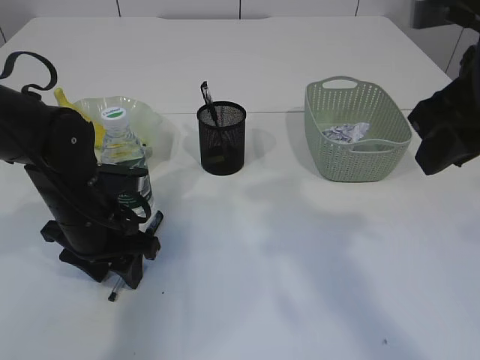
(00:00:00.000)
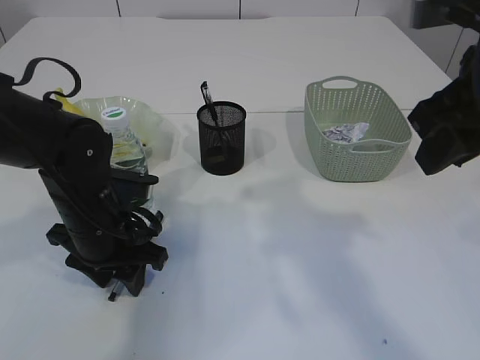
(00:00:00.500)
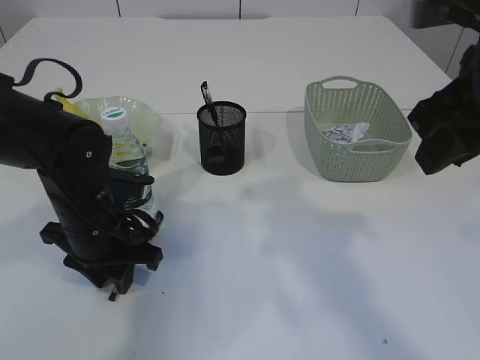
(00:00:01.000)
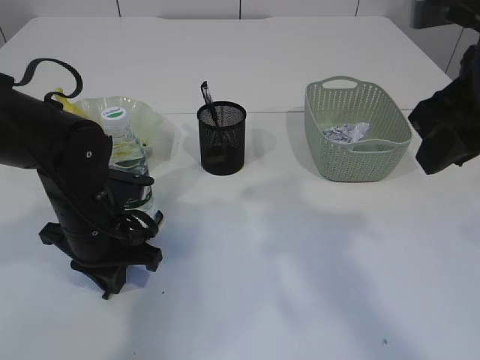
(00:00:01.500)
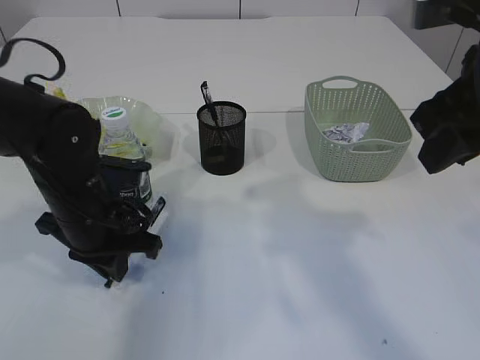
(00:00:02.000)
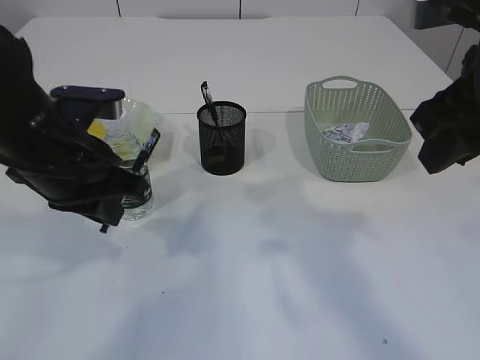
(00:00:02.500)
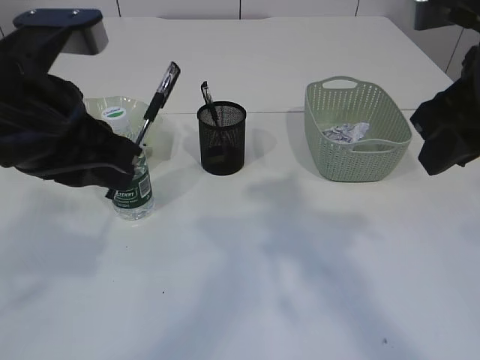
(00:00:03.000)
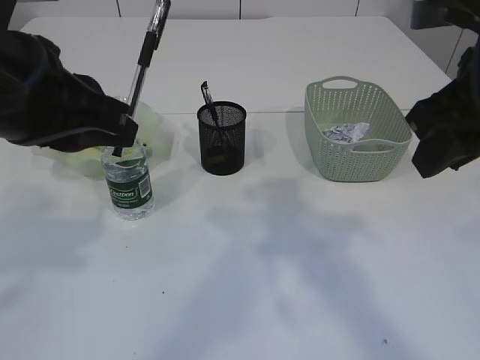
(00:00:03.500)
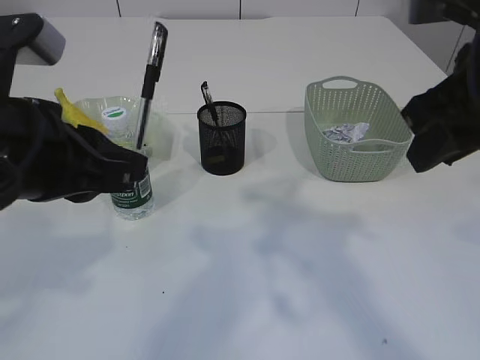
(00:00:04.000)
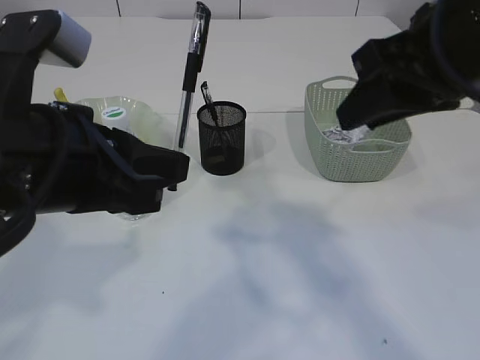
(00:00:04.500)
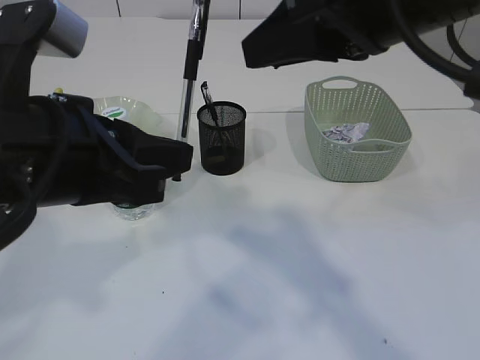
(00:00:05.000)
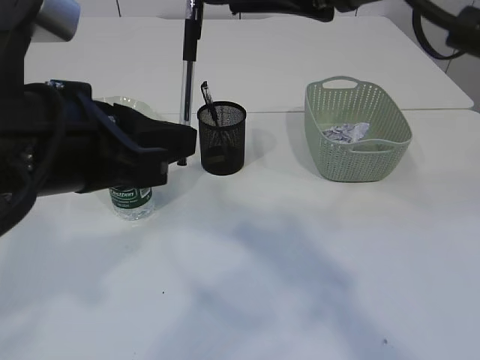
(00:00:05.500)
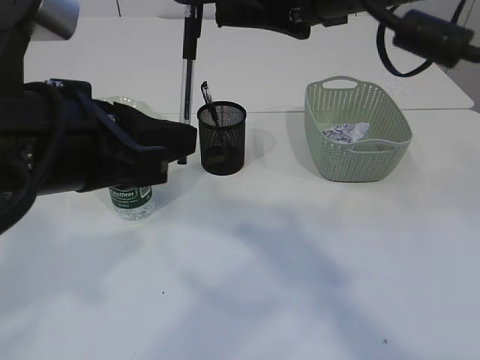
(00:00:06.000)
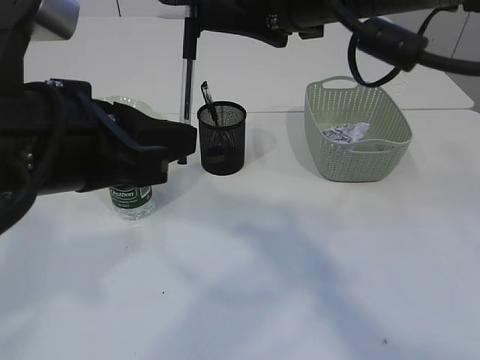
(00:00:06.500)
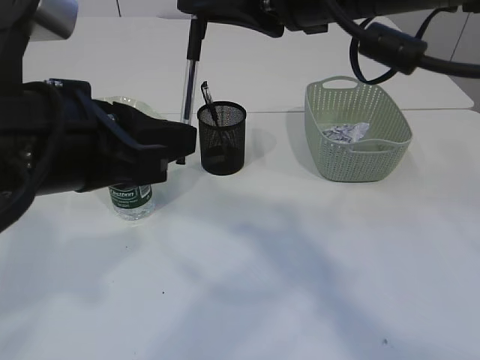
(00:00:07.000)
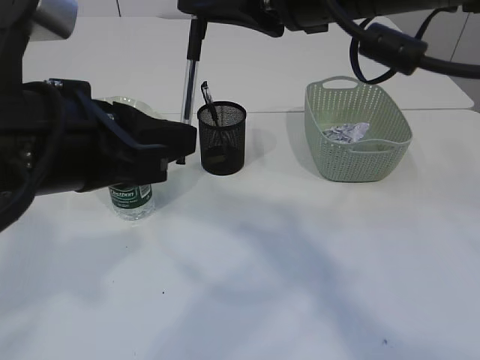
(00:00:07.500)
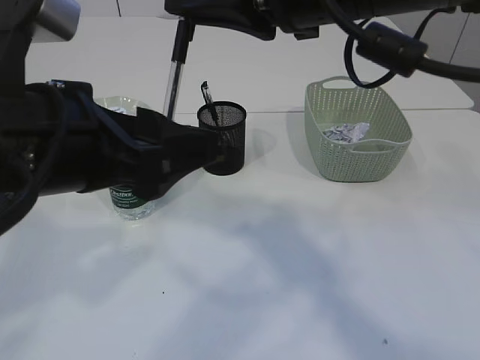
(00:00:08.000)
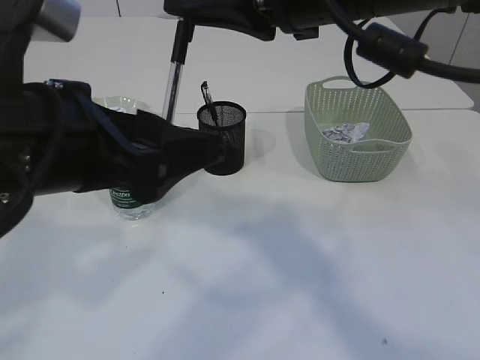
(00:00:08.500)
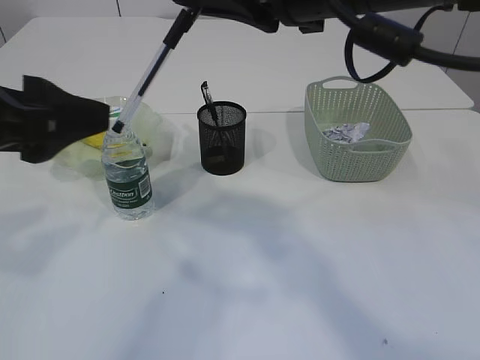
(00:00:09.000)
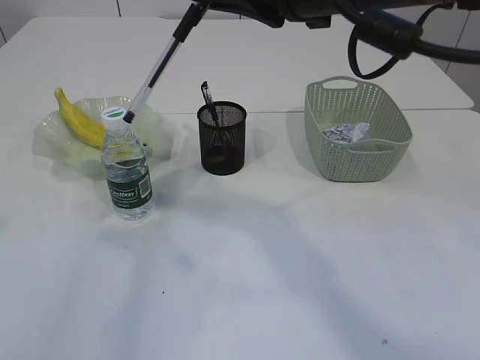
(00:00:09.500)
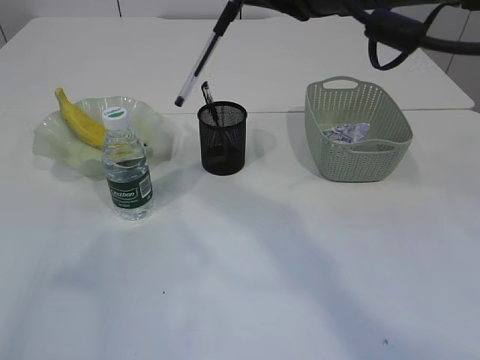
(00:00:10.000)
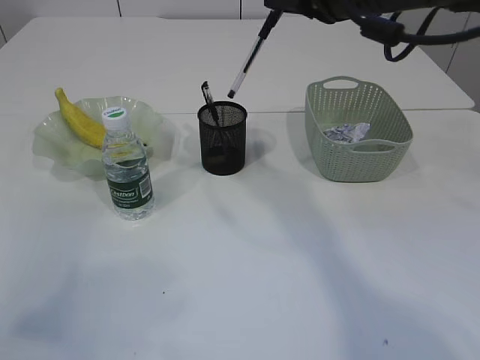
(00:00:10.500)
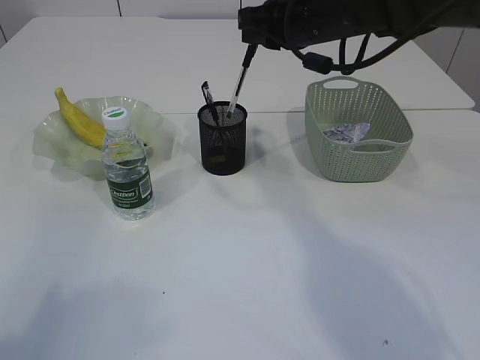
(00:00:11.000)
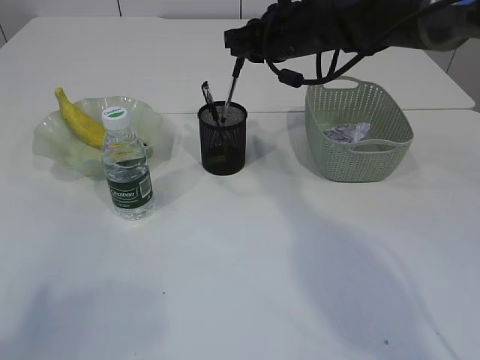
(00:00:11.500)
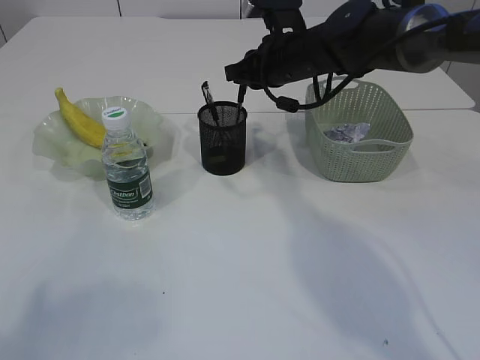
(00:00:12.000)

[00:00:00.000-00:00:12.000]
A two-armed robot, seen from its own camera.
Step, 00:00:00.000 to 00:00:02.000: Pick up the pen with left arm.
Step, 00:00:02.500 to 00:00:09.000: transfer the pen to the right arm.
00:00:00.000 to 00:00:02.000: The left gripper closes.
00:00:02.000 to 00:00:04.000: The left gripper goes roughly 20 cm upward and backward.
00:00:04.000 to 00:00:06.000: The right gripper shifts approximately 10 cm to the left.
00:00:06.000 to 00:00:08.000: The left gripper opens; the right gripper closes up.
00:00:08.000 to 00:00:10.000: The left gripper travels to the left by roughly 15 cm.
00:00:10.000 to 00:00:12.000: The right gripper shifts about 25 cm forward and downward, while the left gripper goes approximately 10 cm backward.

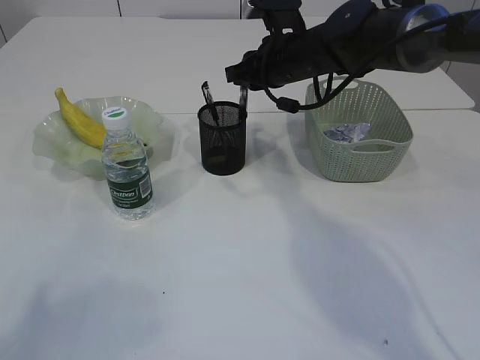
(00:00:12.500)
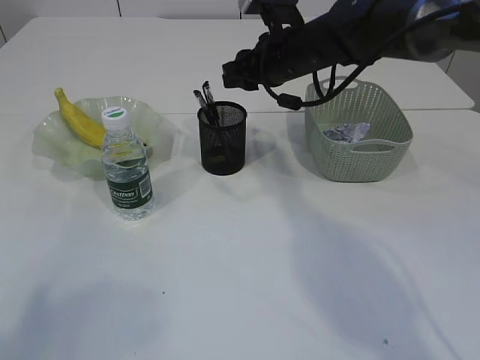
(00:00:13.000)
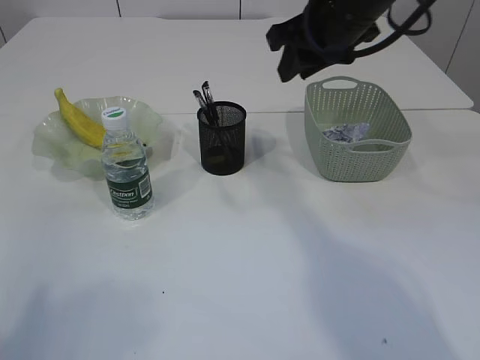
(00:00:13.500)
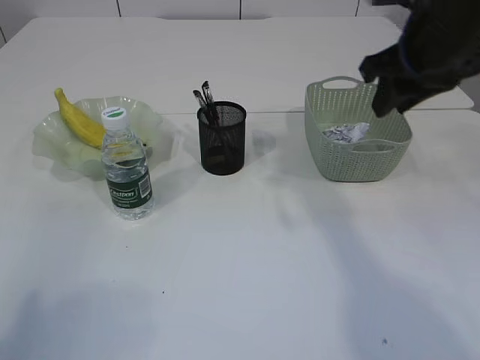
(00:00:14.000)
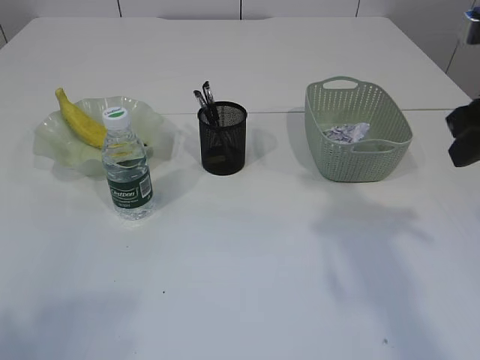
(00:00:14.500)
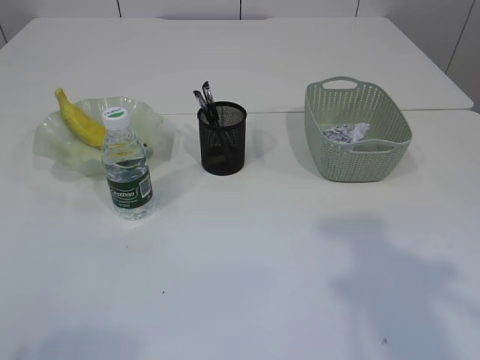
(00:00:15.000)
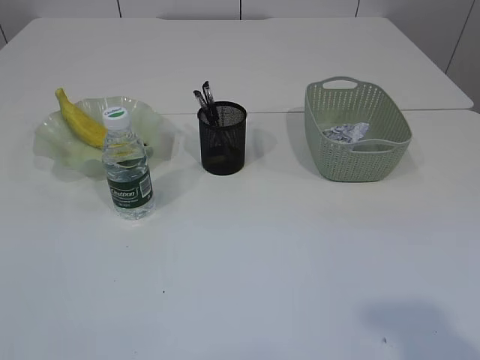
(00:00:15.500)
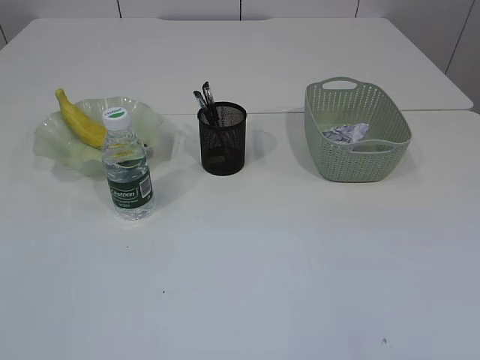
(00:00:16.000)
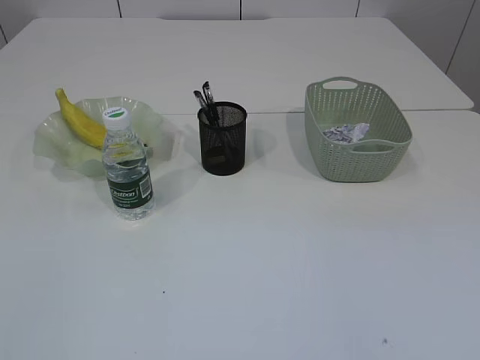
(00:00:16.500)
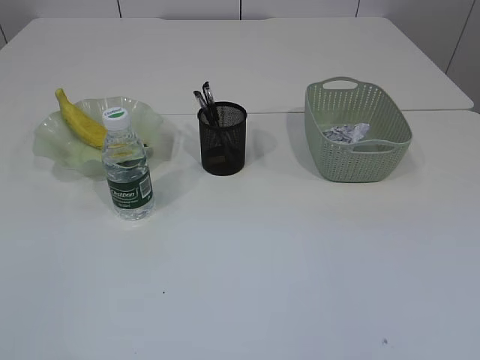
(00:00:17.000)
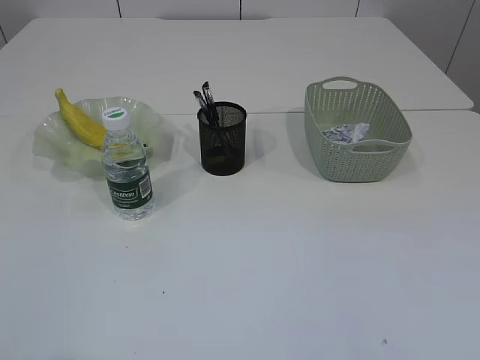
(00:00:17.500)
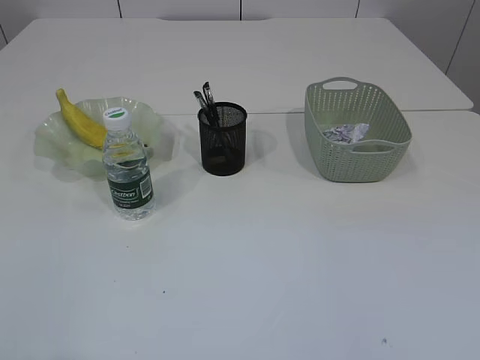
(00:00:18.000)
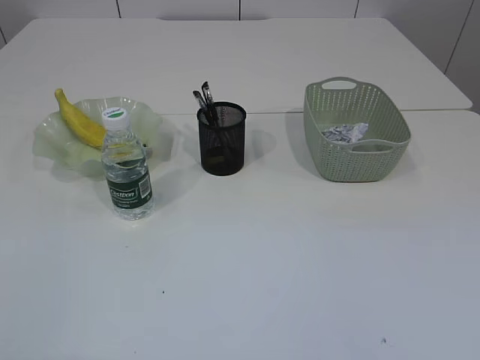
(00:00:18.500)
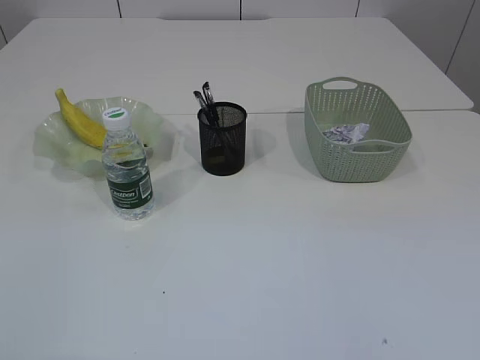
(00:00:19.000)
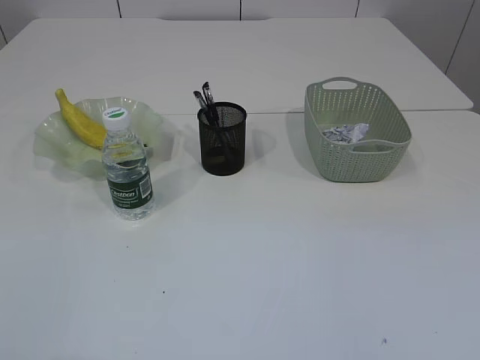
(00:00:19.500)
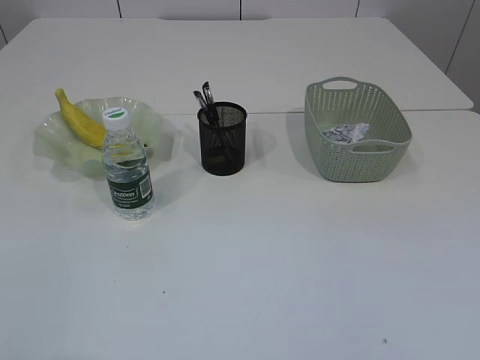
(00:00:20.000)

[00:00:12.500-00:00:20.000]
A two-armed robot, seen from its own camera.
00:00:12.500 to 00:00:14.500: The right gripper shifts approximately 25 cm backward and to the right.
00:00:14.500 to 00:00:16.500: The right gripper heads backward, covering approximately 30 cm.
